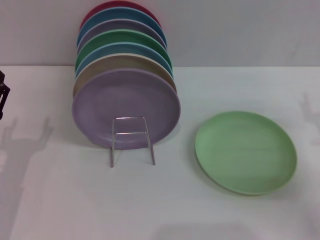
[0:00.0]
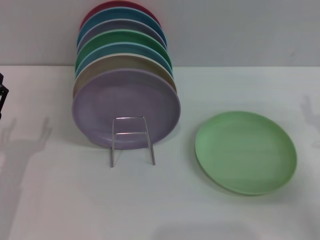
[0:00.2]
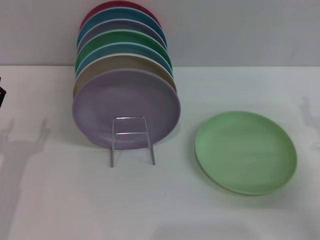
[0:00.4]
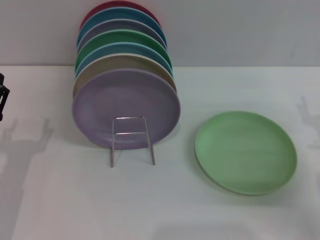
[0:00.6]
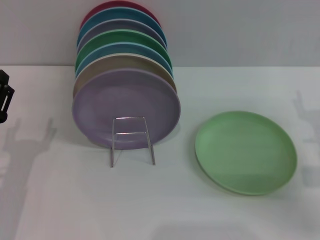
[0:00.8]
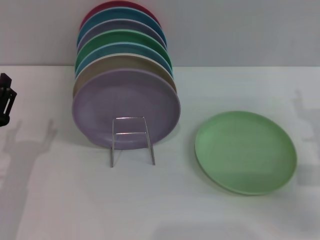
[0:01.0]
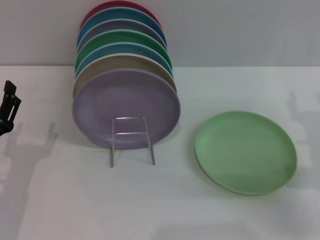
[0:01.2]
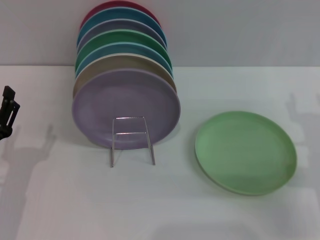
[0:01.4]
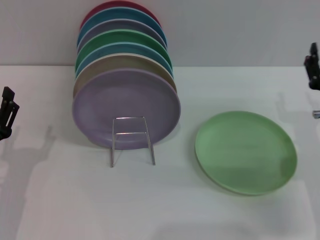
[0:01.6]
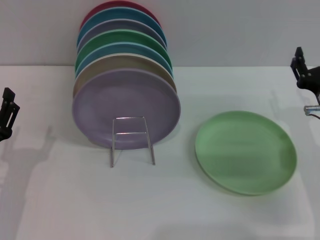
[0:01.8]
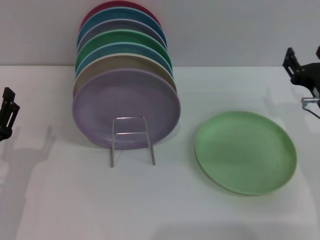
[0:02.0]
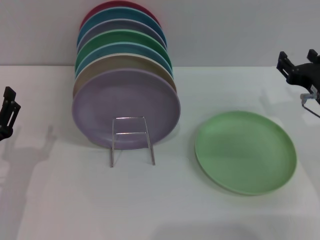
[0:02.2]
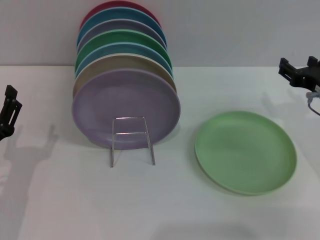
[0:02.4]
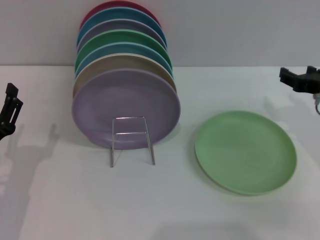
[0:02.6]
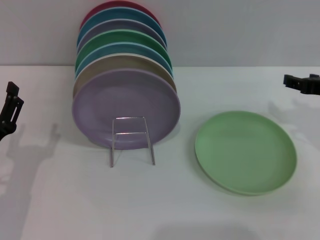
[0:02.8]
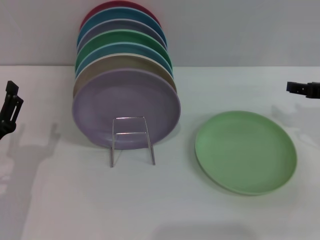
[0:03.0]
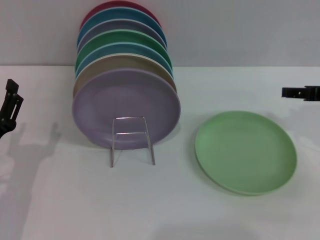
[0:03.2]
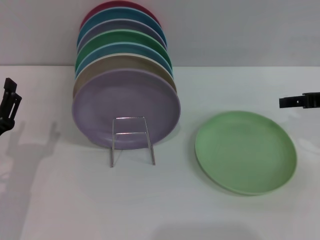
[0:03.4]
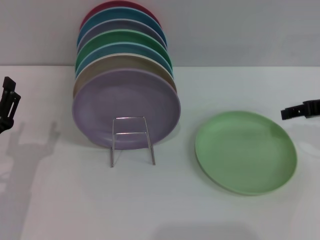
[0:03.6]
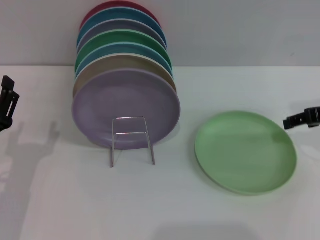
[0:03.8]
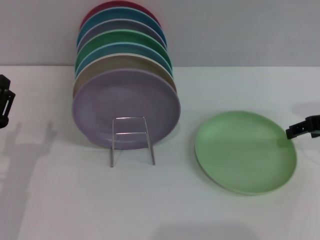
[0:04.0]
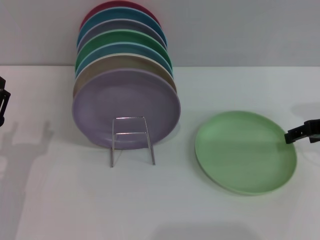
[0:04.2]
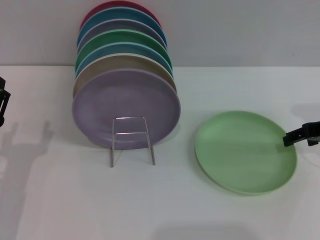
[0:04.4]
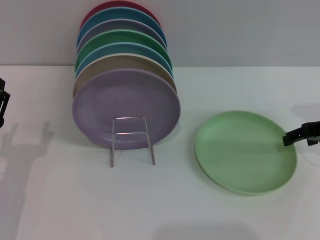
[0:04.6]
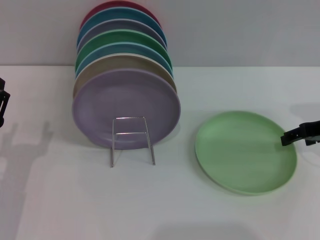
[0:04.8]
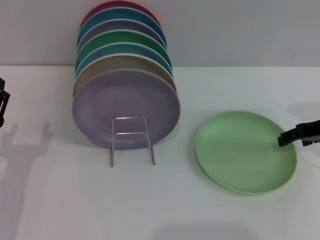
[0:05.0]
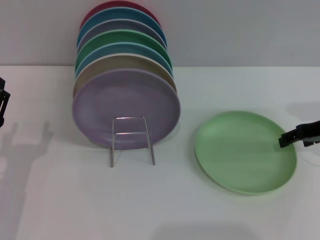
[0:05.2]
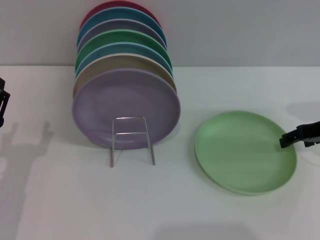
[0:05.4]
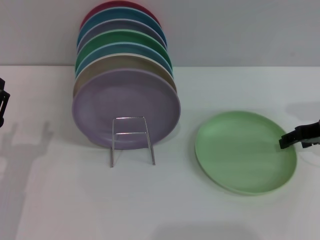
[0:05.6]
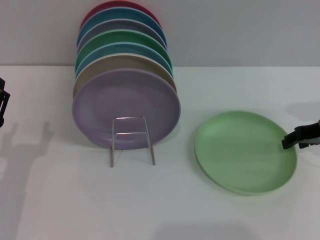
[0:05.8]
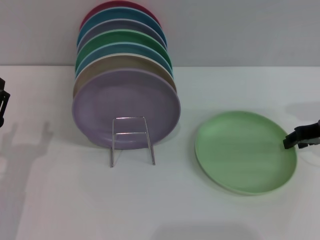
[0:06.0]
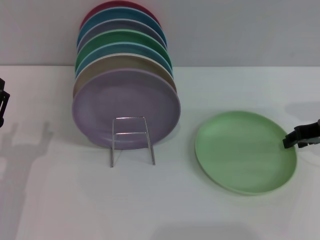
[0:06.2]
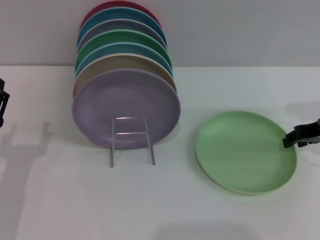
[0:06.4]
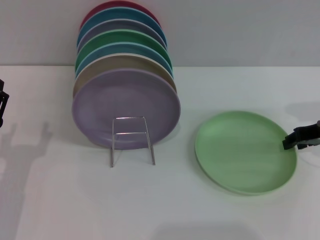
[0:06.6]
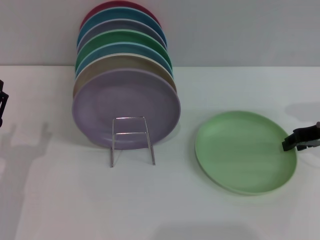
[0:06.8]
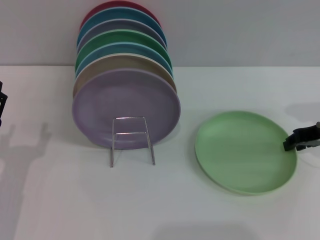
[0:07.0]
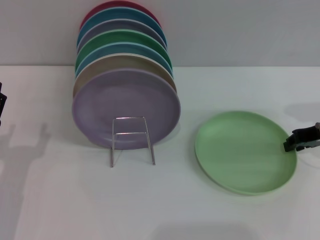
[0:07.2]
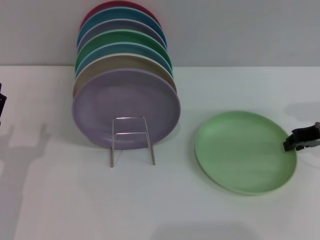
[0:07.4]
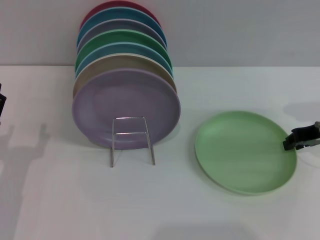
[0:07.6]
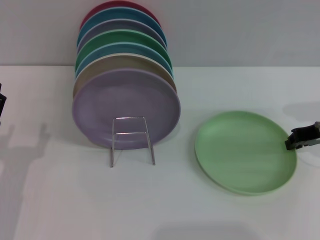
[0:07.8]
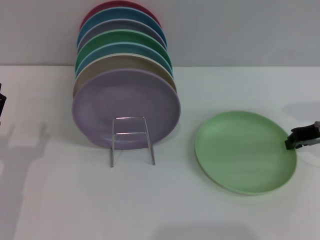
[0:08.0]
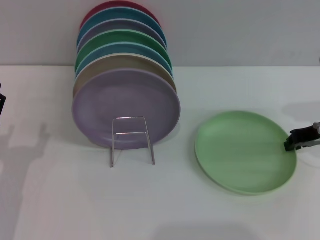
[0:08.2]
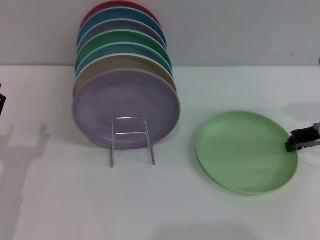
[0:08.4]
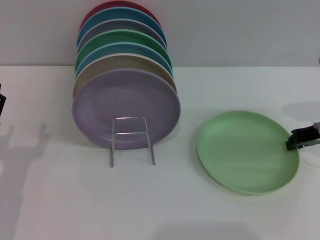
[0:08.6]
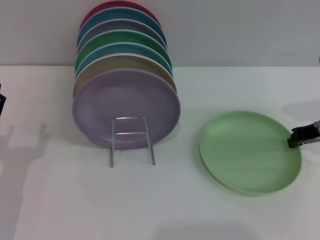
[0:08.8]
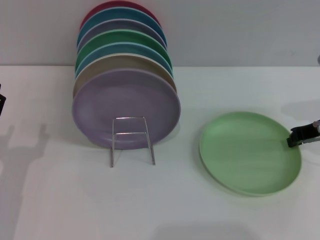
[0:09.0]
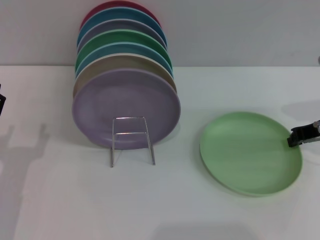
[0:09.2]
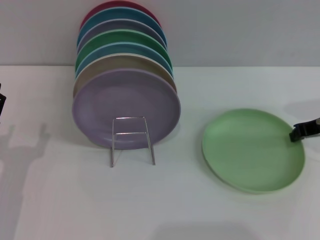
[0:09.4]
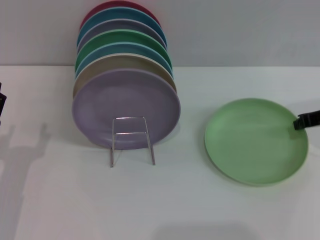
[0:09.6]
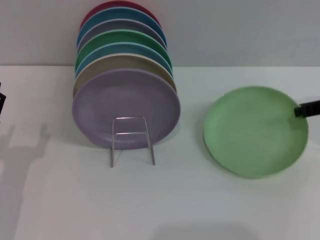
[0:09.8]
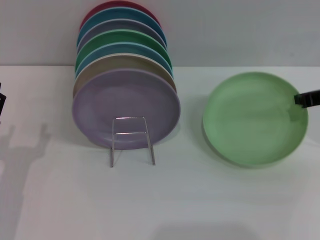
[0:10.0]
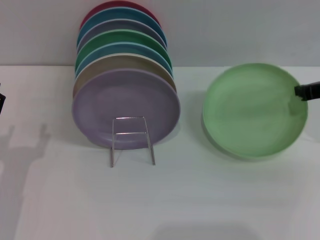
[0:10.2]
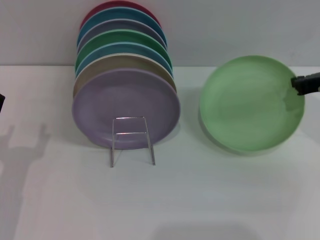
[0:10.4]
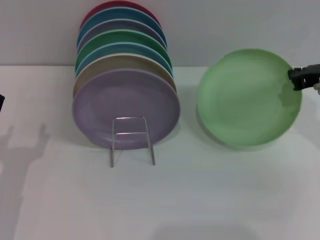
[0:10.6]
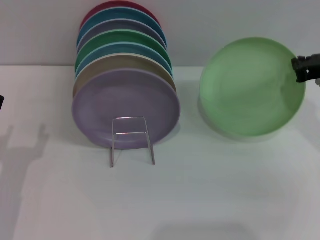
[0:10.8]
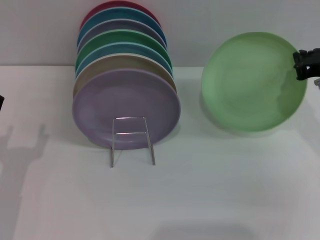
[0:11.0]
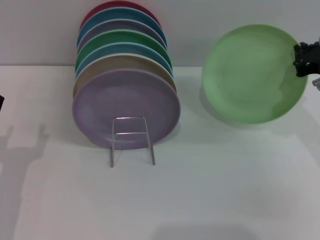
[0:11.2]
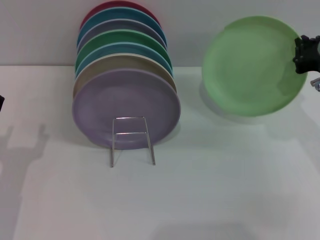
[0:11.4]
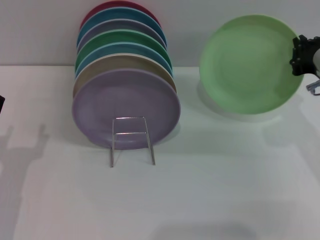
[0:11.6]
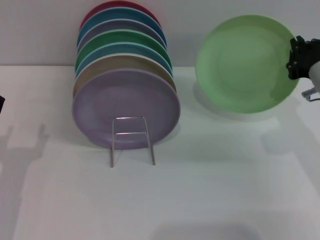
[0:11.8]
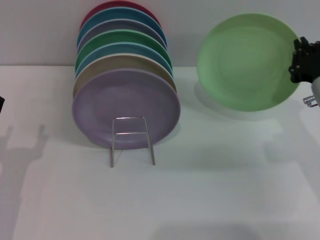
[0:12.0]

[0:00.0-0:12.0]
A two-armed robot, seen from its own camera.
Task of the whole recording: Grip the plate with one hand, pass it to the other, then set it on the shelf.
0:00.0 to 0:01.6: The right gripper travels to the left by about 5 cm.
0:01.6 to 0:03.0: The right gripper travels upward and to the right by roughly 10 cm.
0:07.6 to 0:09.0: The two grippers keep their place.
0:10.4 to 0:12.0: The right gripper heads backward, covering about 5 cm.

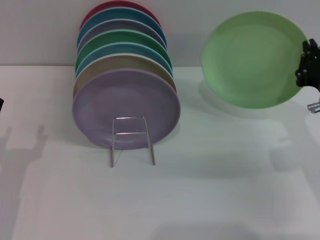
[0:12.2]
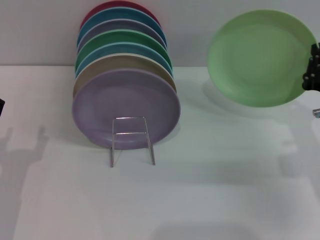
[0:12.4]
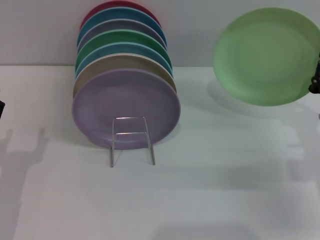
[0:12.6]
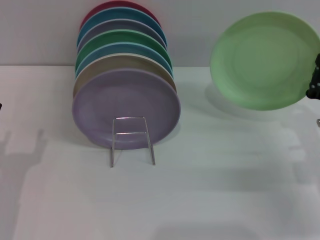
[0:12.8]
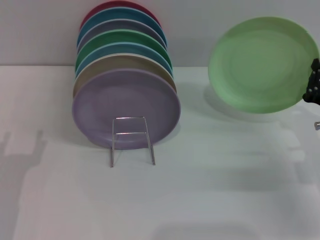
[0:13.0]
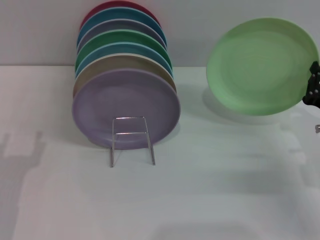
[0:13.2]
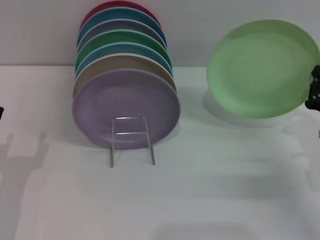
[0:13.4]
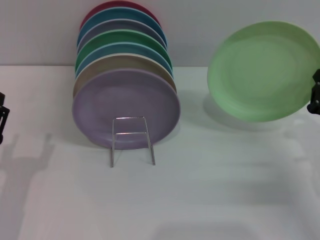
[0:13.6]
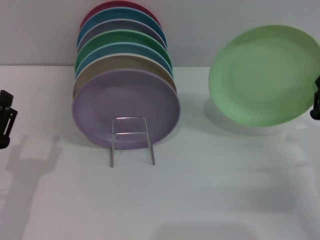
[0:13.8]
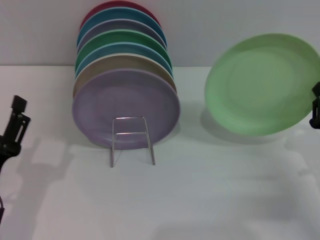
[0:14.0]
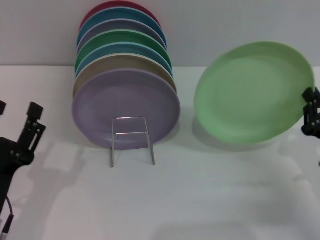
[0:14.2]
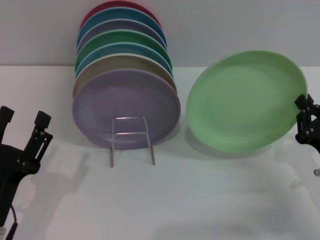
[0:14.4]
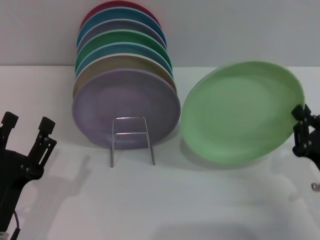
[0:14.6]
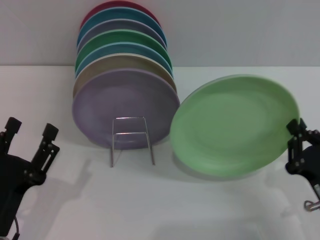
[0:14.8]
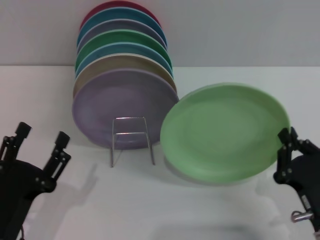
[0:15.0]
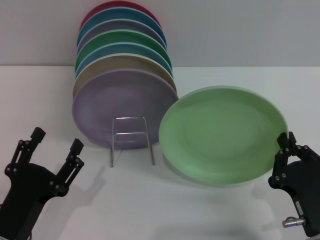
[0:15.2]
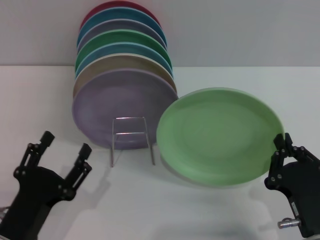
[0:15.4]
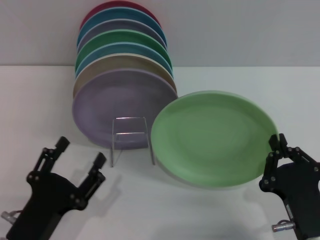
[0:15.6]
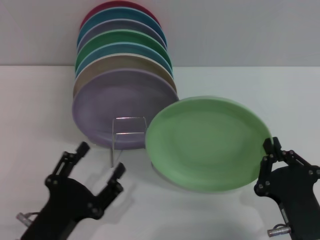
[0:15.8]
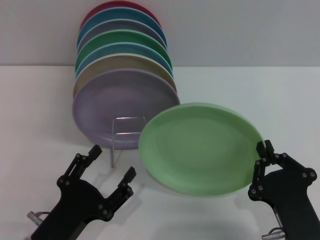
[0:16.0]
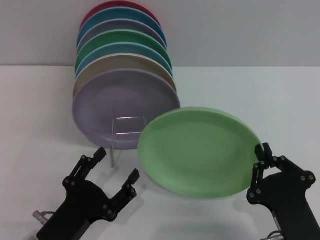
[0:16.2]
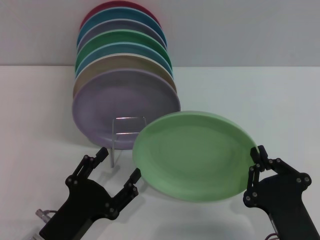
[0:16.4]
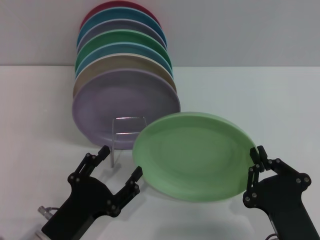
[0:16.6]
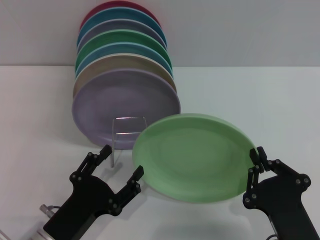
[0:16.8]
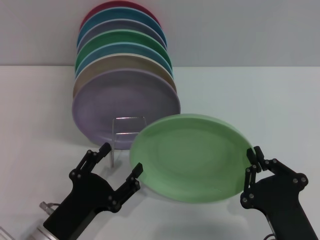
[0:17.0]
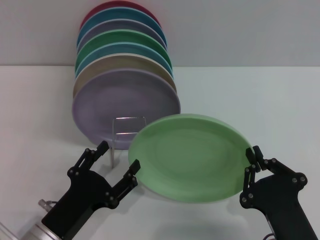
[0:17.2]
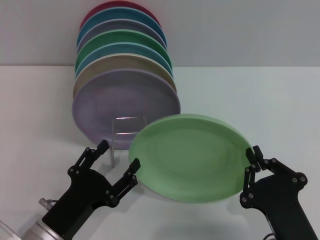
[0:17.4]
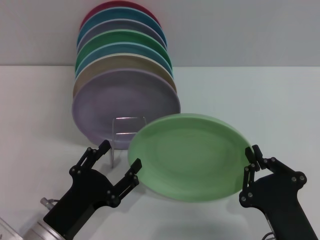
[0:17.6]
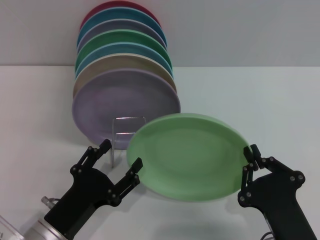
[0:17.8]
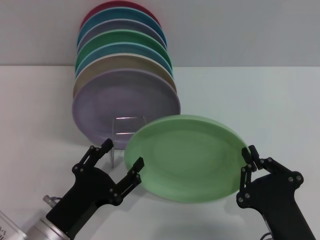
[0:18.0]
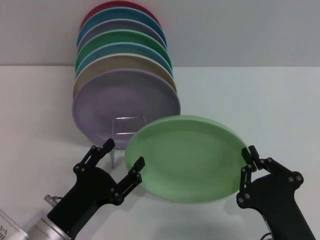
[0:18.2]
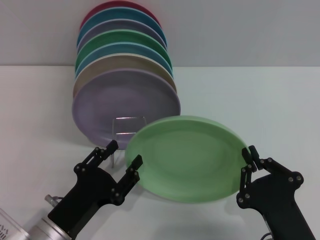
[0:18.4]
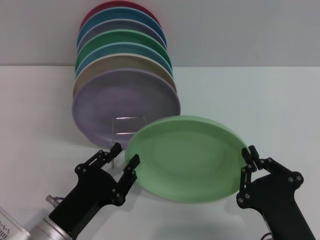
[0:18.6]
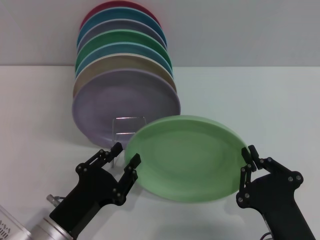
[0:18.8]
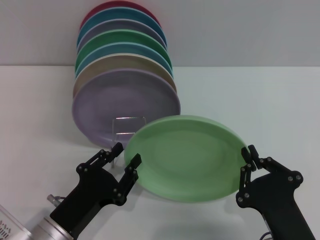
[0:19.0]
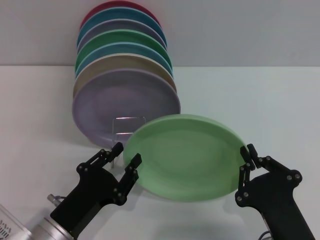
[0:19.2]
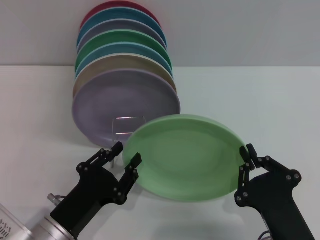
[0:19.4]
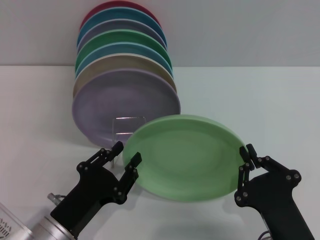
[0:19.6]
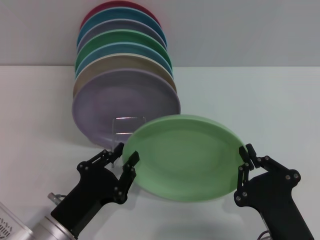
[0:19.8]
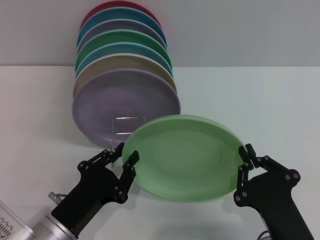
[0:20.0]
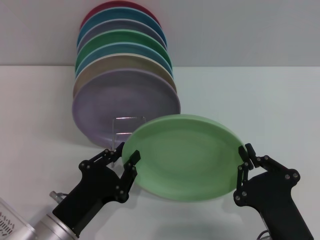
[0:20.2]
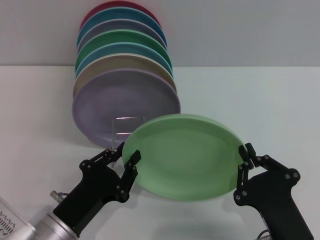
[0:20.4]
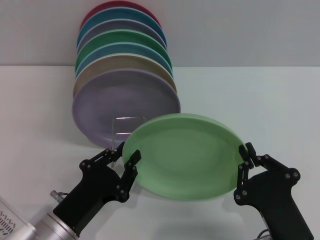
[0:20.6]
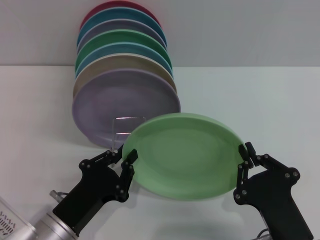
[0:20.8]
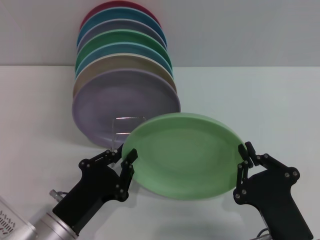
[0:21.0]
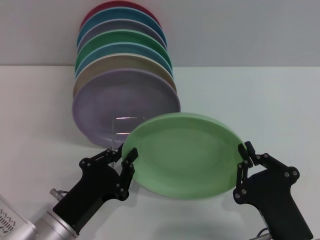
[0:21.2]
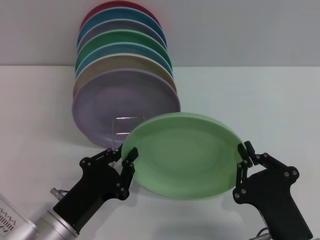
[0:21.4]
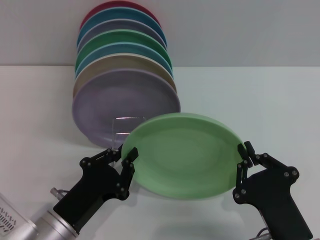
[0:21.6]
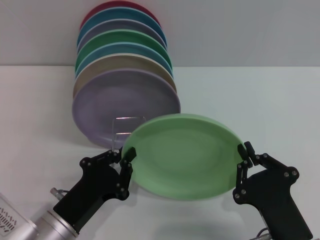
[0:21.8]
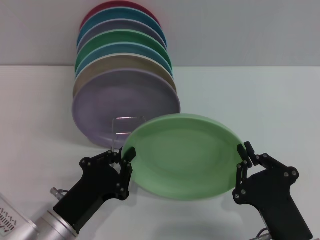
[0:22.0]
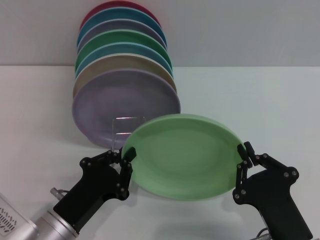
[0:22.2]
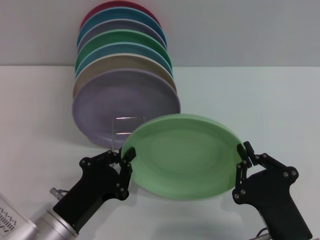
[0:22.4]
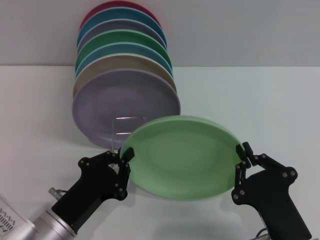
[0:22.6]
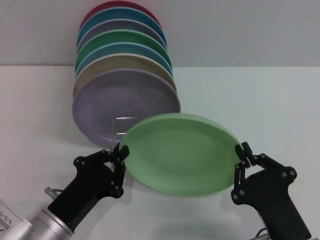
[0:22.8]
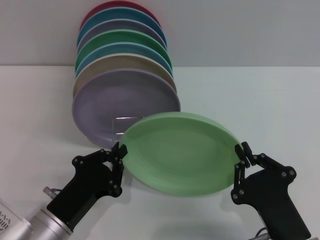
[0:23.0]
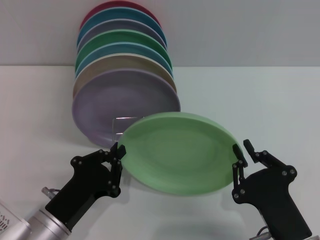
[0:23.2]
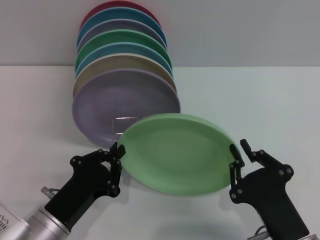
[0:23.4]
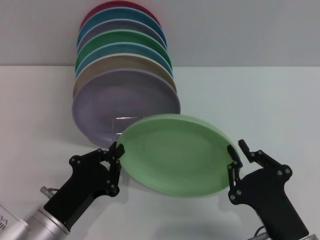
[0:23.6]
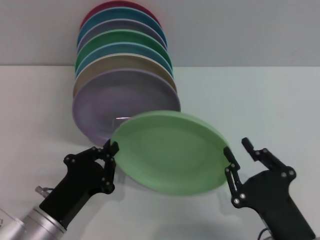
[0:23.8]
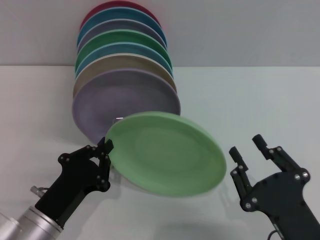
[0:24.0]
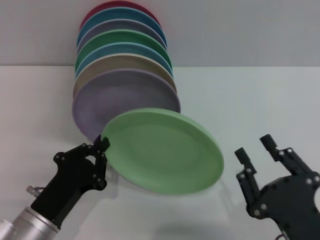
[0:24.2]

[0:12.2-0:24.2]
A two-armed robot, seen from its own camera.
Task of the whole recording: Grip the plate with one hand, pass it to the other, then set it on the shelf.
Step, 0:12.4 to 0:24.0: Pass the plate from the right gripper to the left gripper.
0:12.2 to 0:13.8: The right gripper goes roughly 5 cm downward.
0:13.8 to 0:15.2: The left gripper shifts by roughly 5 cm; the right gripper goes some 15 cm backward and to the left.
0:16.6 to 0:18.2: The grippers move only a little.
0:18.2 to 0:19.8: The left gripper closes its fingers.
0:19.8 to 0:22.6: Both grippers stay about where they are.
0:22.6 to 0:24.2: The right gripper opens its fingers.
